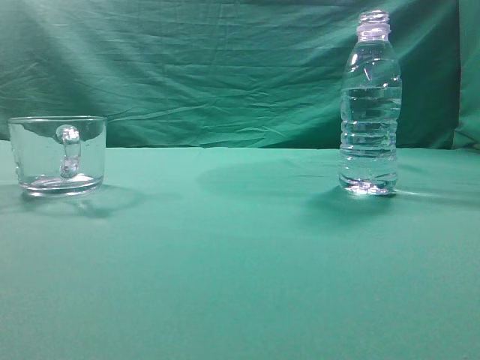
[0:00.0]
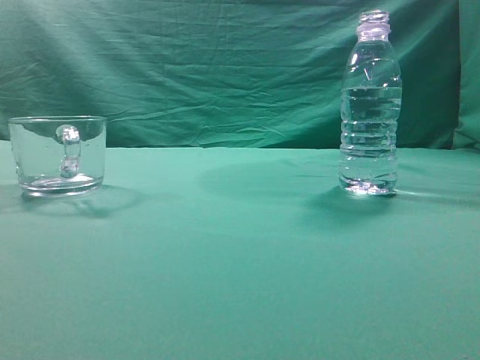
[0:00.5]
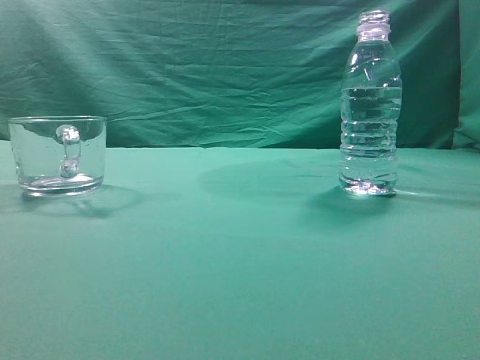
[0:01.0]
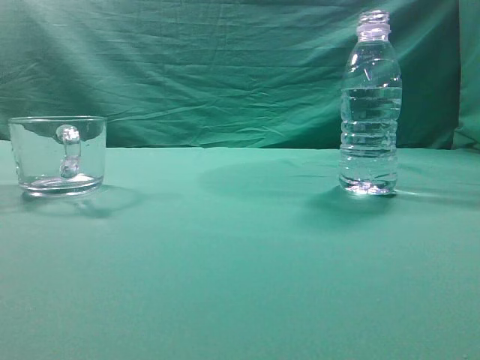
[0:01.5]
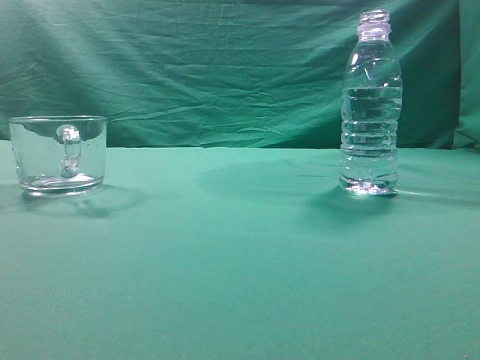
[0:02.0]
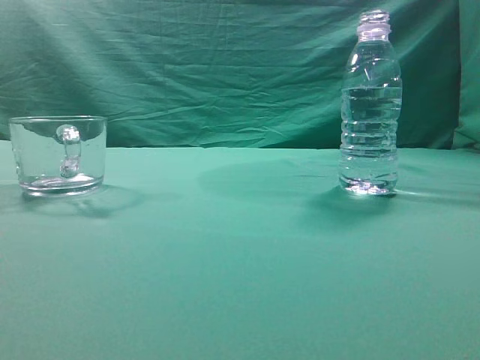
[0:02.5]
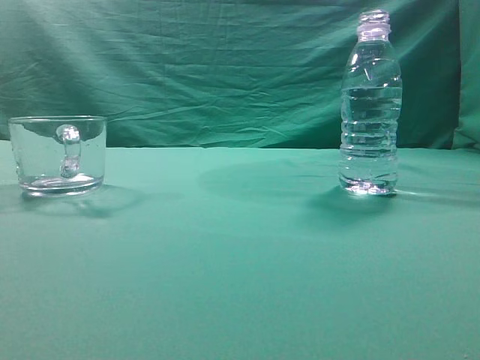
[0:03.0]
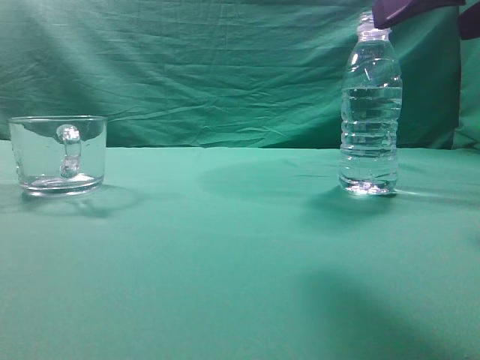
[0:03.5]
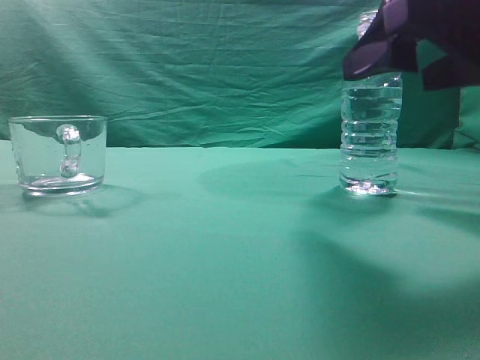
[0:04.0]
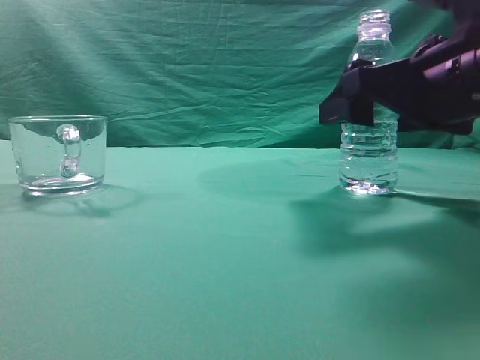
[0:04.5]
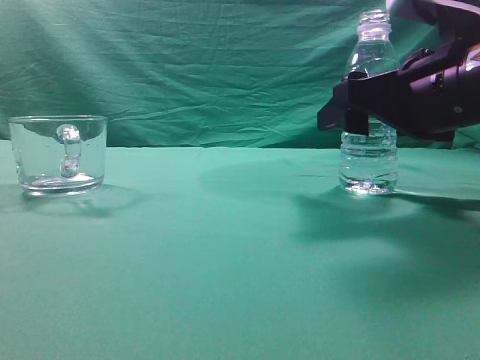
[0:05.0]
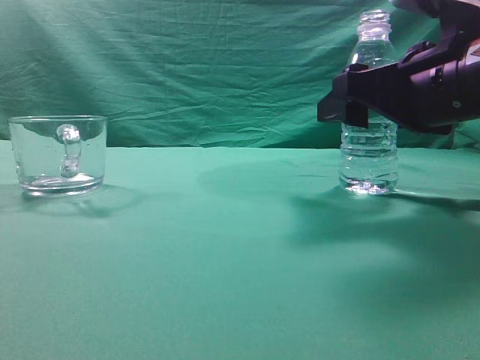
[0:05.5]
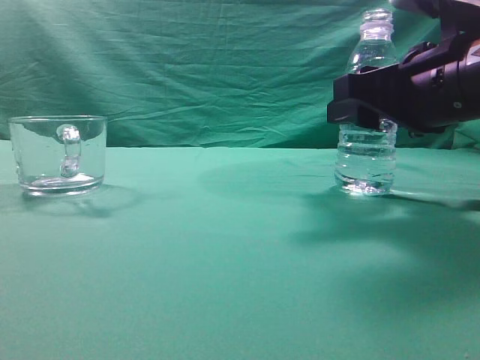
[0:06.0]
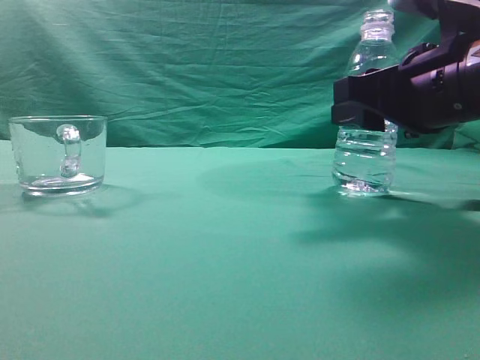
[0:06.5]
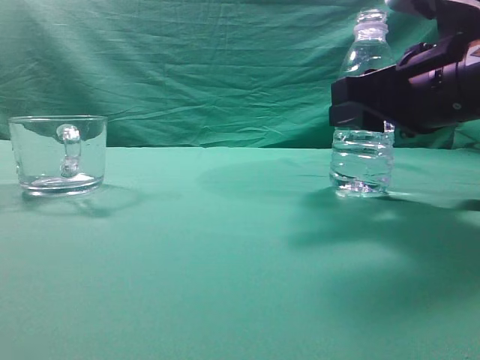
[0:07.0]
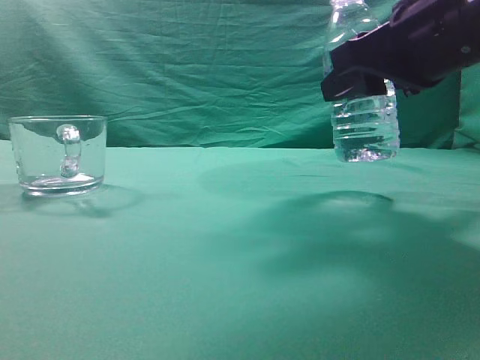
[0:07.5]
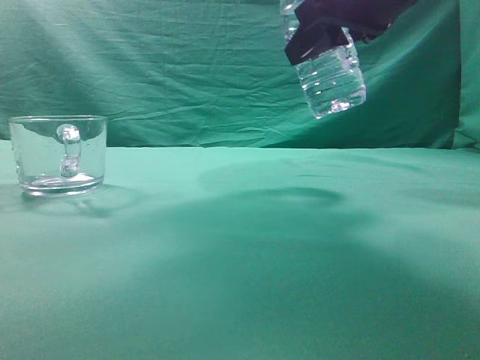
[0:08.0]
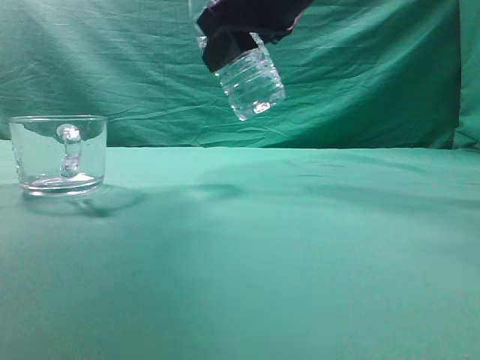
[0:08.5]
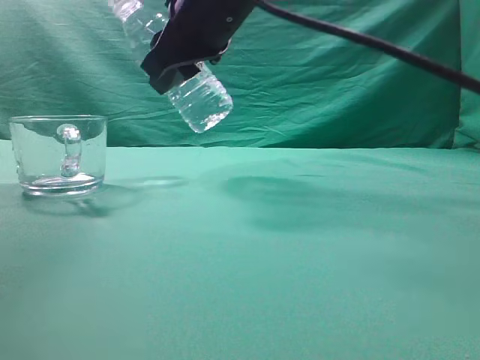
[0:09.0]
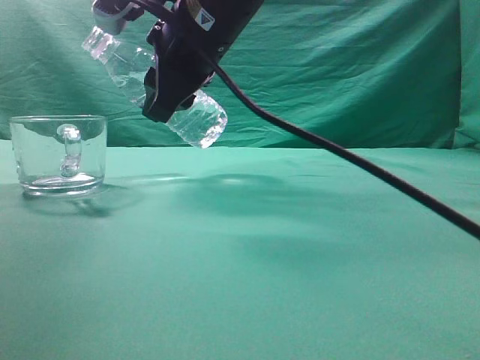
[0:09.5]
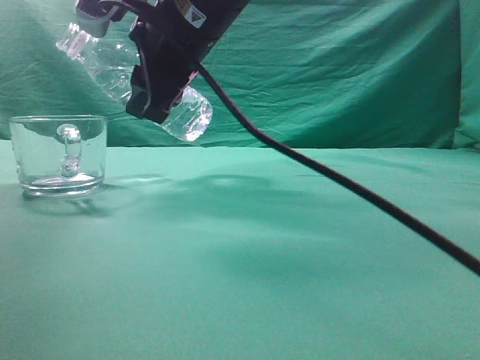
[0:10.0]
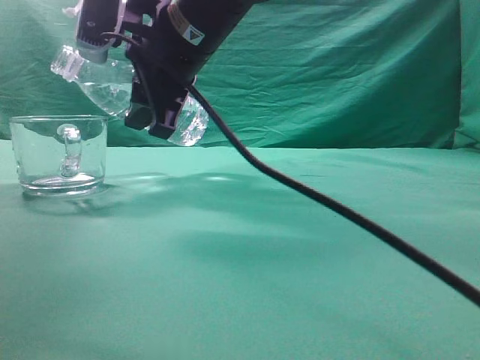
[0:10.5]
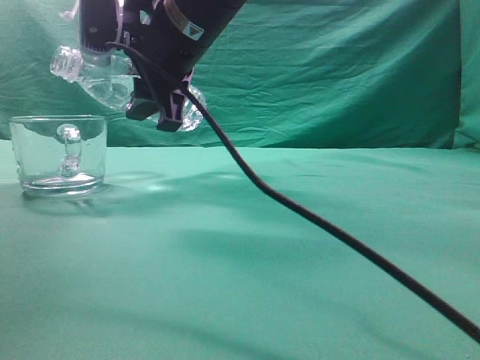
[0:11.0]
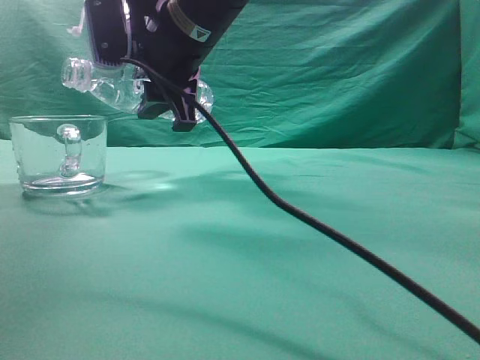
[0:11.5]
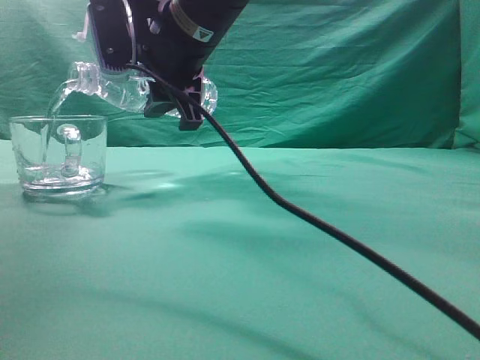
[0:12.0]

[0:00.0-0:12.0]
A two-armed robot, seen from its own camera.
Task of the whole recording: pick up the water bottle and pour the water in it into the glass.
Step, 0:00.0 to 0:07.5: Grasp the mineral water bottle.
0:02.0 to 0:04.0: The right gripper heads forward and to the left, covering roughly 20 cm, and opens up.
0:04.0 to 0:06.0: The right gripper is displaced forward by about 5 cm.
0:06.0 to 0:08.0: The right gripper shifts approximately 10 cm upward.
0:08.0 to 0:10.0: The right gripper moves to the left, roughly 20 cm.

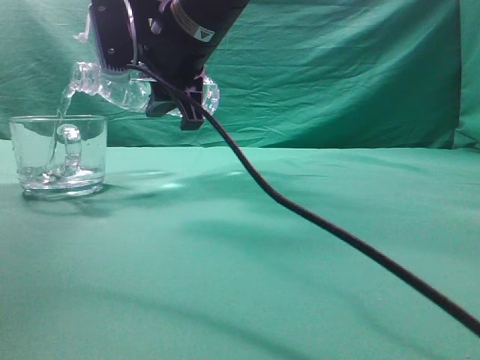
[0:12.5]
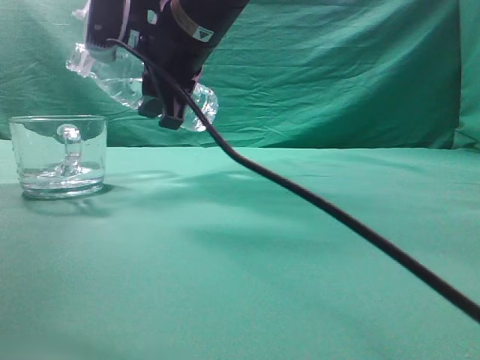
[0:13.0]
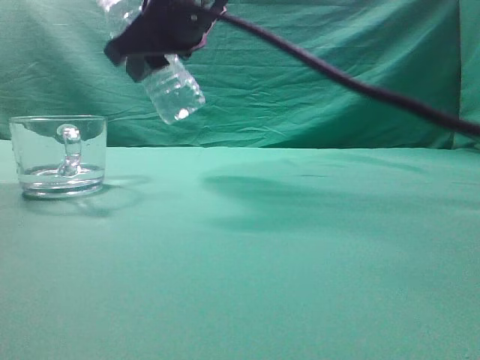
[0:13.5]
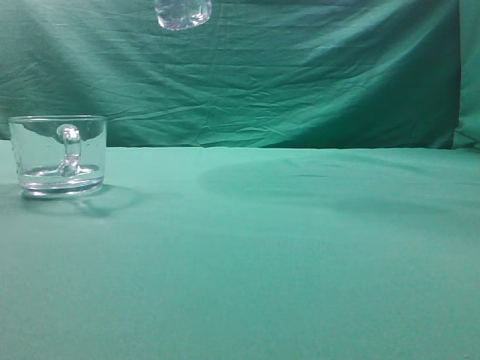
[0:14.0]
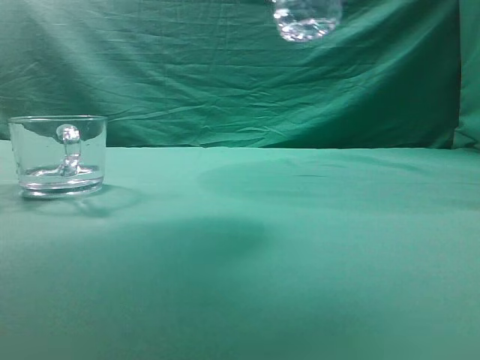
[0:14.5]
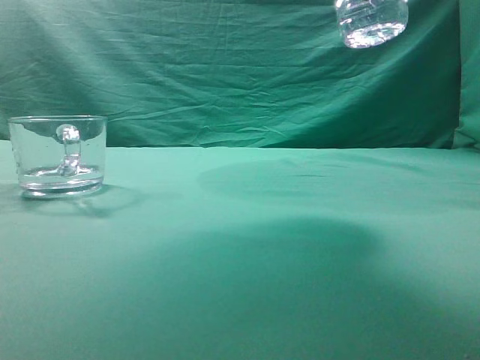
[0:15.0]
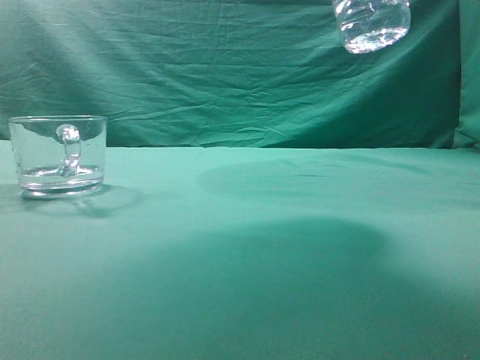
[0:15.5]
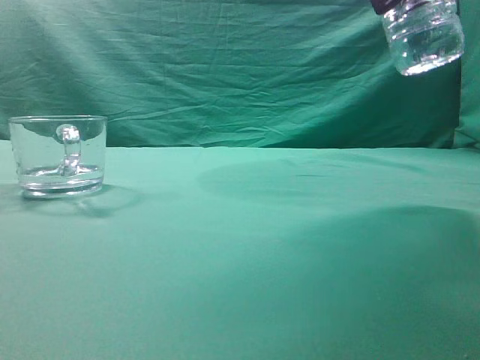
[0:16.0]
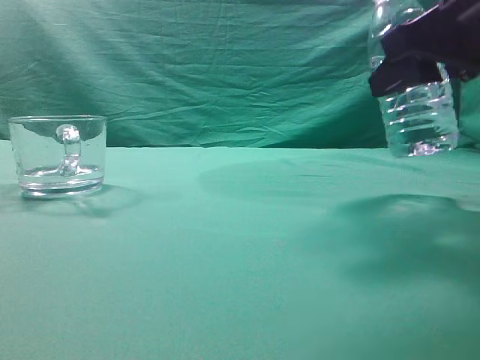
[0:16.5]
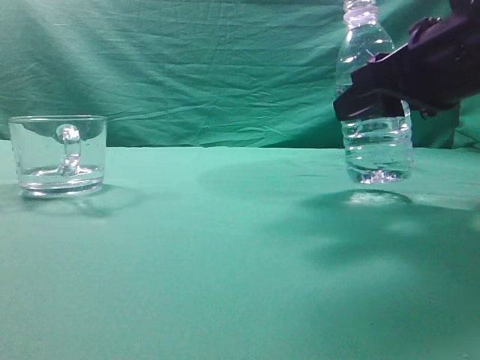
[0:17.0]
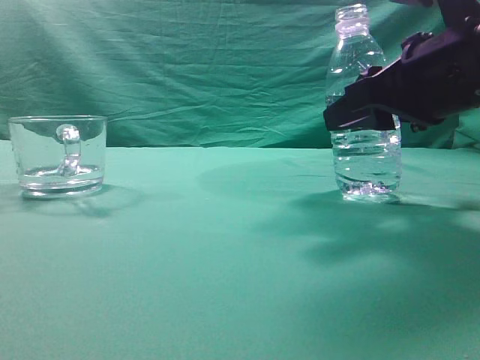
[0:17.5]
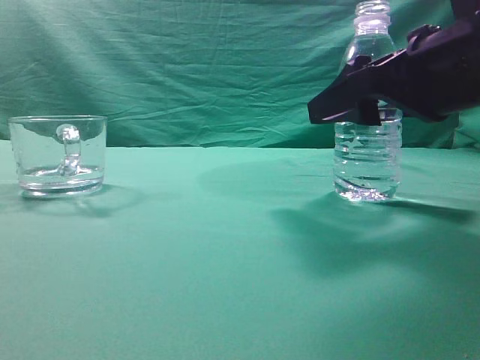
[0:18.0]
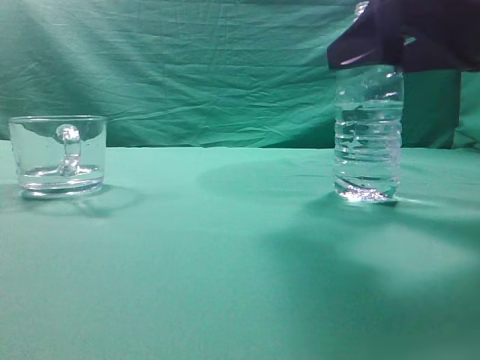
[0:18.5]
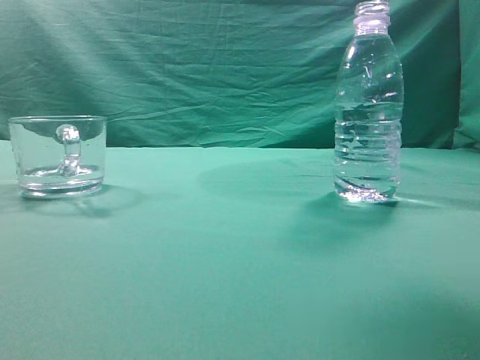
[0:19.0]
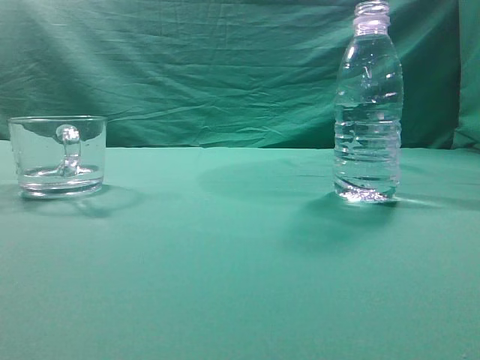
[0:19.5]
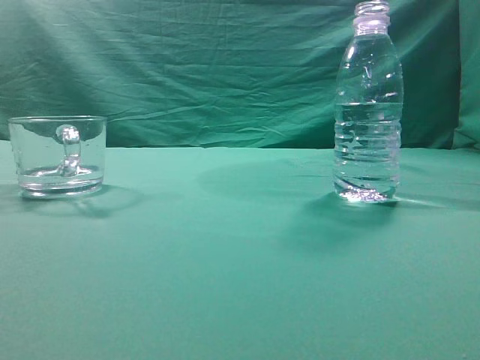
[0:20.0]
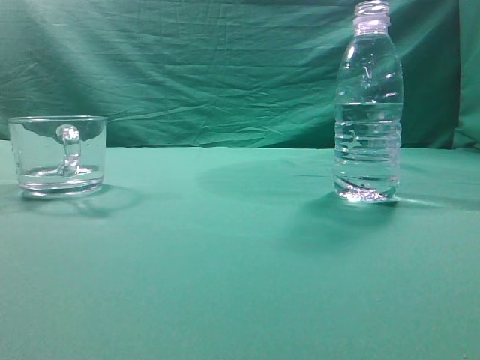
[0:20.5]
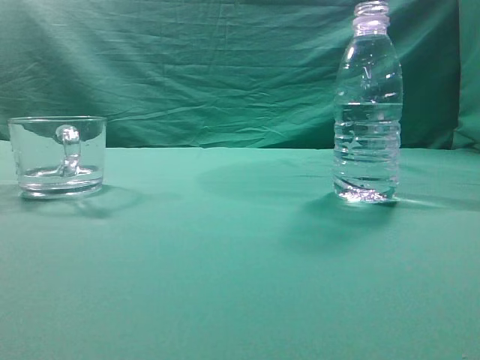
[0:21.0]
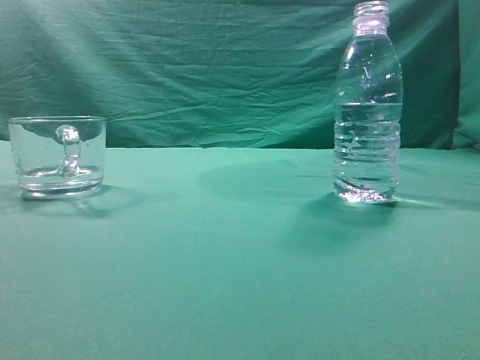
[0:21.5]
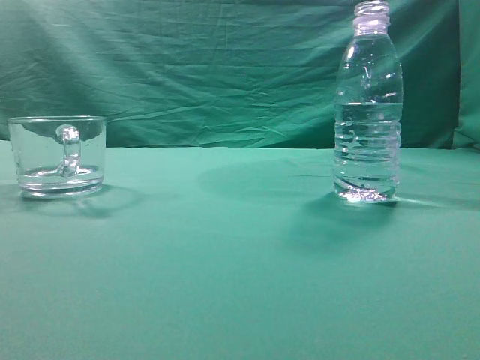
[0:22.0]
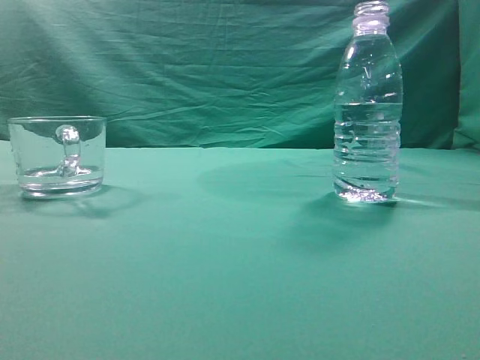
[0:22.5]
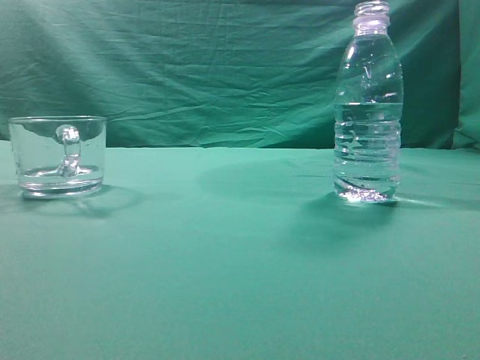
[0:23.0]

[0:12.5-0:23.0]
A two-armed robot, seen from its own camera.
Task of the whole recording: pick up the water bottle and pour the water in it into the glass.
0:12.5 to 0:14.5: The right gripper moves to the right, upward and backward, approximately 20 cm.
0:14.5 to 0:16.5: The right gripper heads downward and to the right, covering roughly 15 cm.
0:16.5 to 0:19.0: The right gripper is displaced backward by roughly 5 cm, and opens, then closes once more.
0:19.0 to 0:21.0: The right gripper is displaced backward, upward and to the right by approximately 15 cm.
